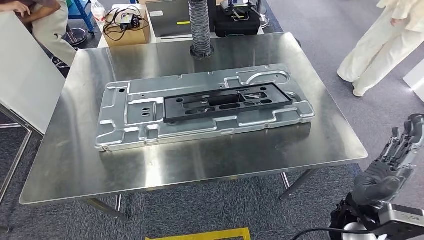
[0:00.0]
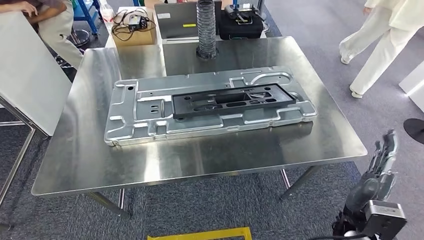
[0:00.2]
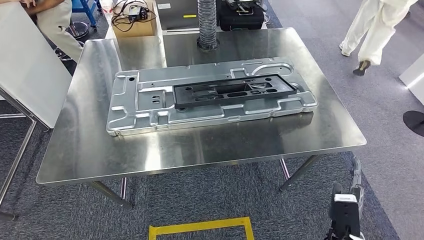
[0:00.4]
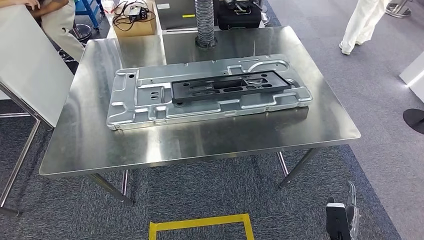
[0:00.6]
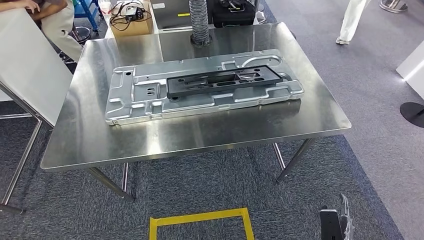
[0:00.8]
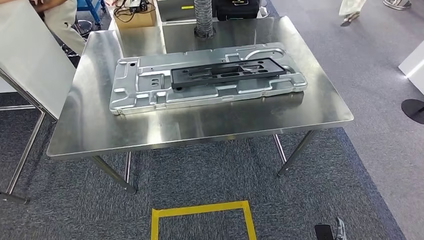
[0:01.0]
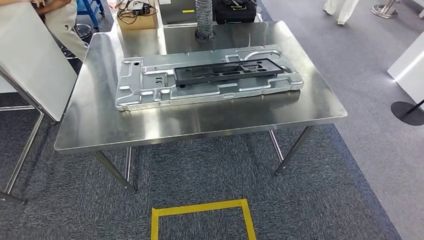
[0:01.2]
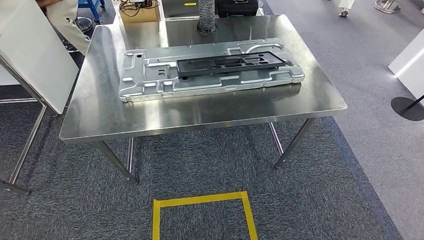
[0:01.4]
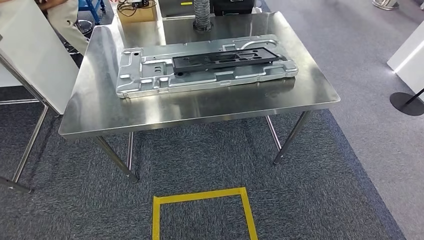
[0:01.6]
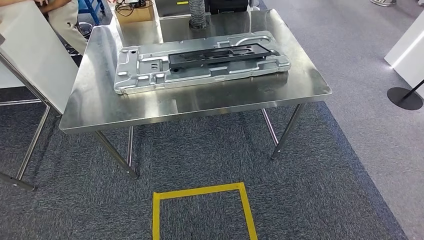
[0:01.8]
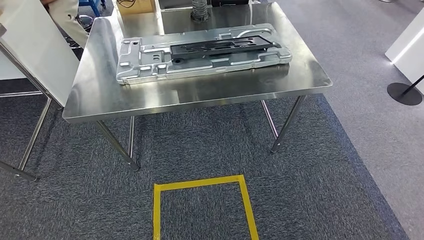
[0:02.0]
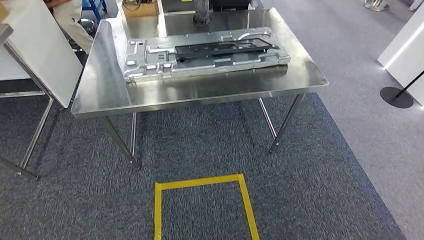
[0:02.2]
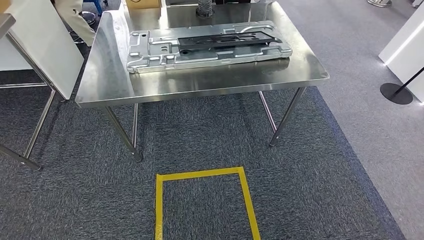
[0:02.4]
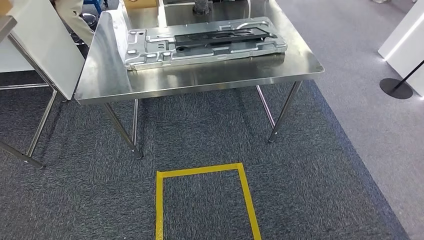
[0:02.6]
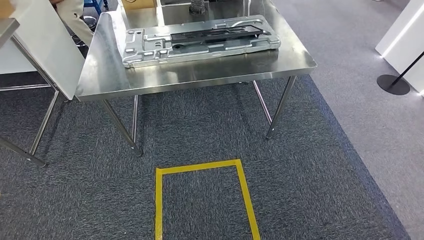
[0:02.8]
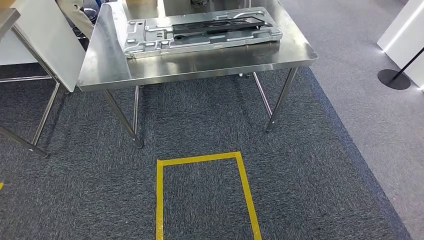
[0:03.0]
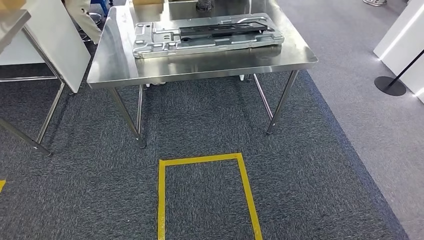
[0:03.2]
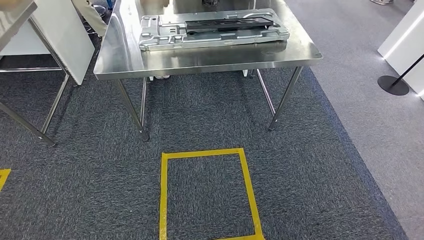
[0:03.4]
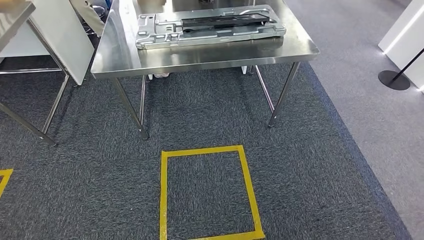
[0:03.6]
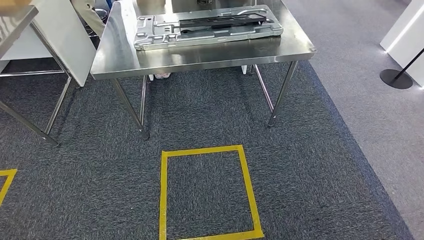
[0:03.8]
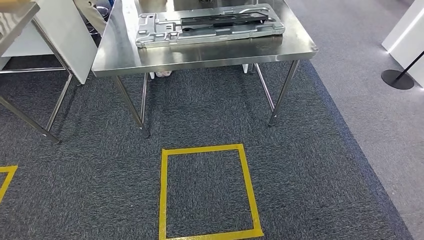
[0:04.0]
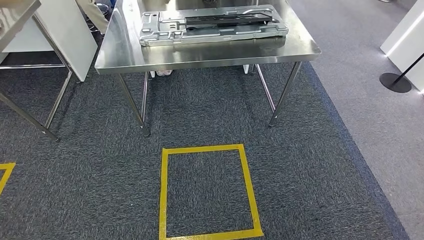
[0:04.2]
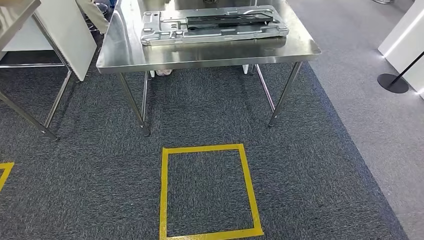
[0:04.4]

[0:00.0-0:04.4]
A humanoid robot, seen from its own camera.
Step, 0:00.8 to 0:04.2: Move to the initial position at the workbench.
